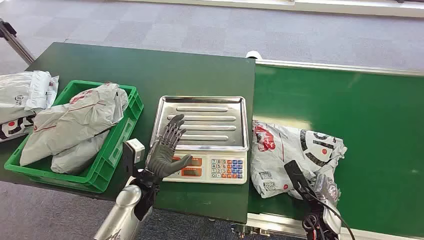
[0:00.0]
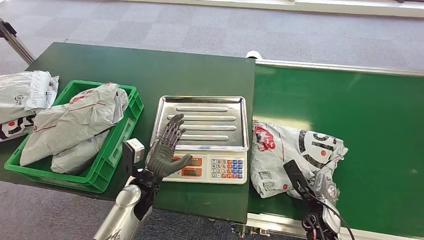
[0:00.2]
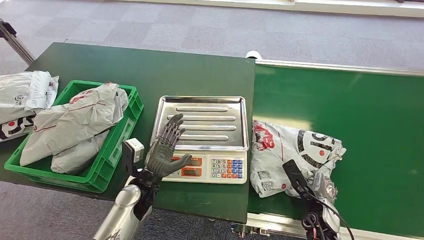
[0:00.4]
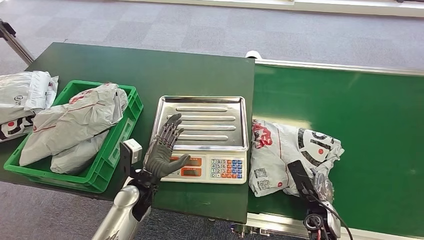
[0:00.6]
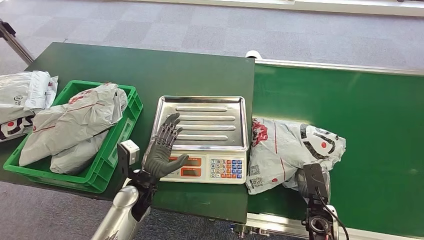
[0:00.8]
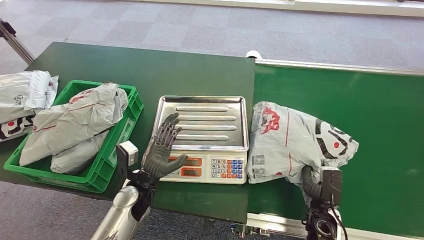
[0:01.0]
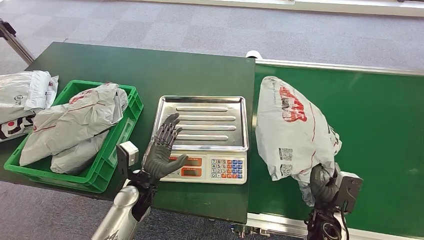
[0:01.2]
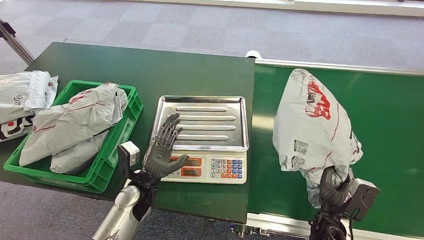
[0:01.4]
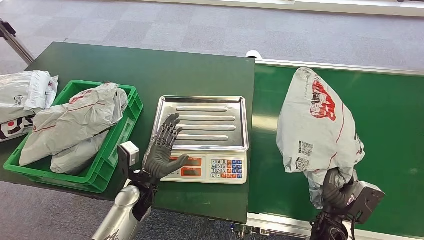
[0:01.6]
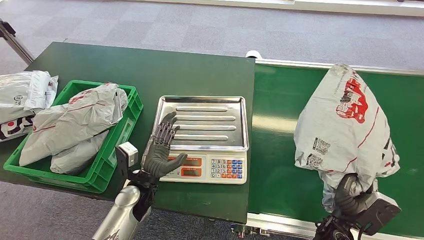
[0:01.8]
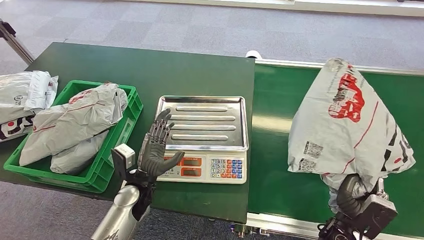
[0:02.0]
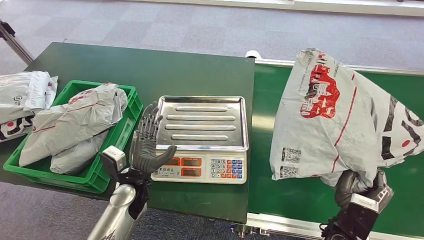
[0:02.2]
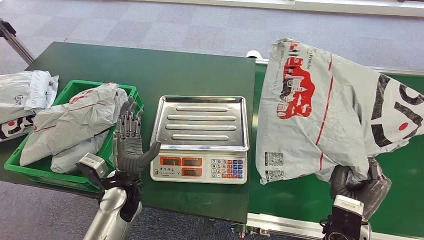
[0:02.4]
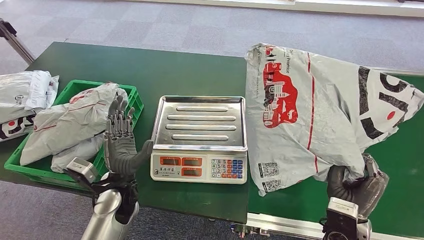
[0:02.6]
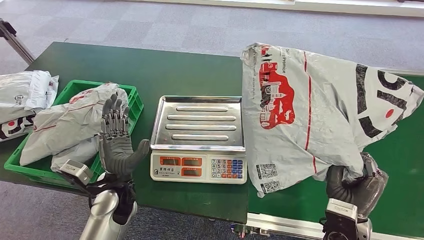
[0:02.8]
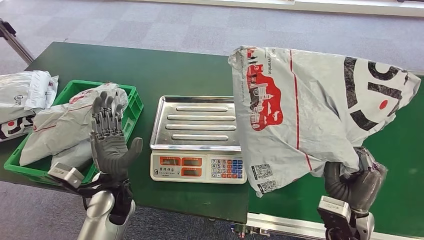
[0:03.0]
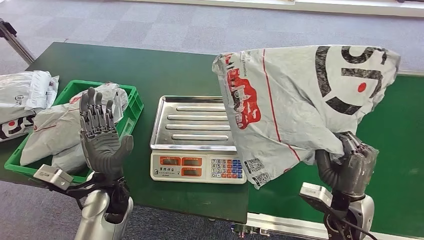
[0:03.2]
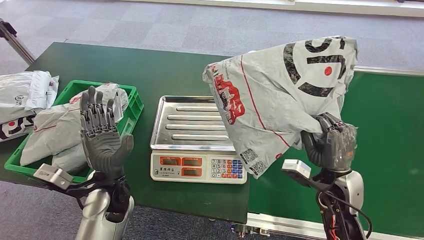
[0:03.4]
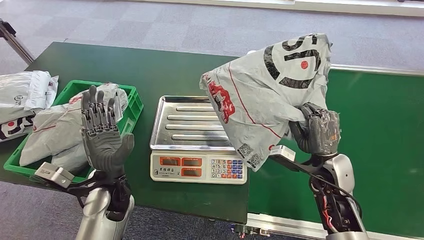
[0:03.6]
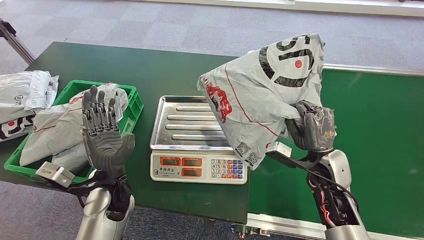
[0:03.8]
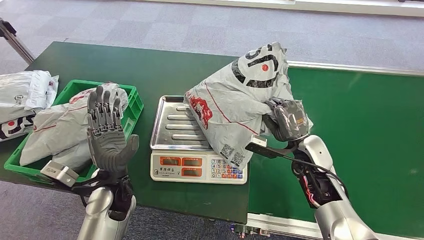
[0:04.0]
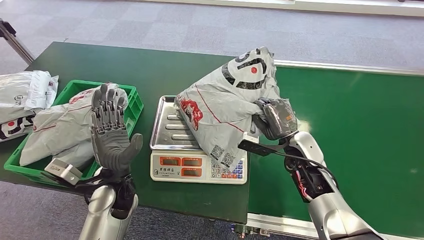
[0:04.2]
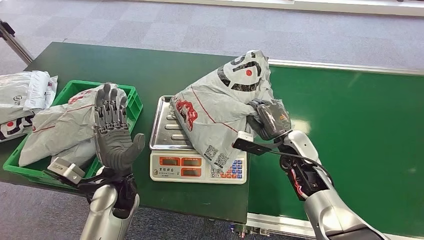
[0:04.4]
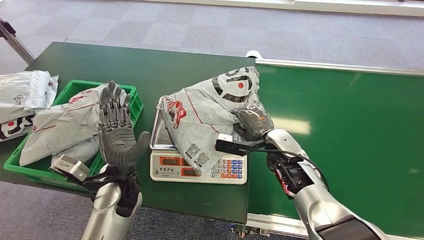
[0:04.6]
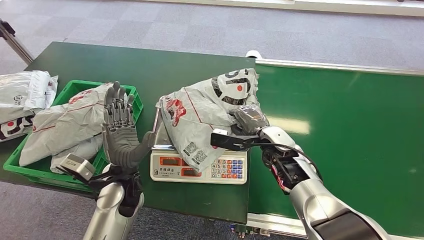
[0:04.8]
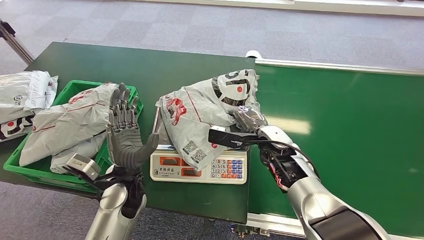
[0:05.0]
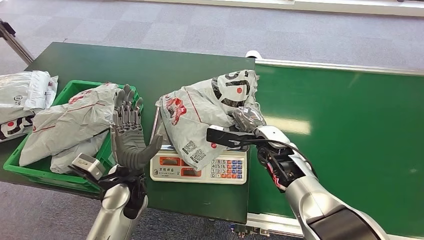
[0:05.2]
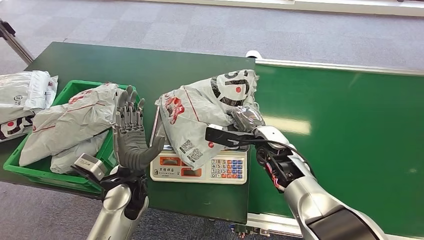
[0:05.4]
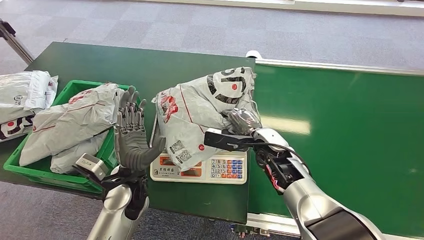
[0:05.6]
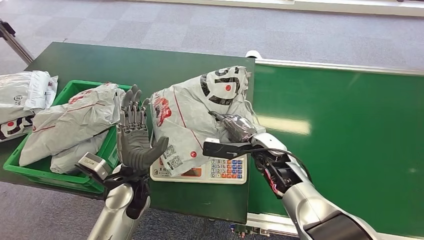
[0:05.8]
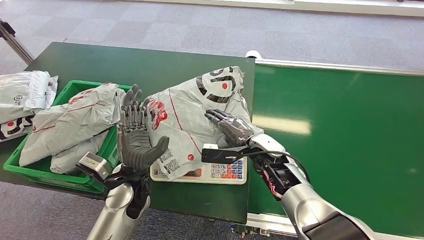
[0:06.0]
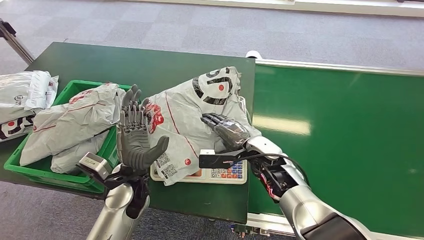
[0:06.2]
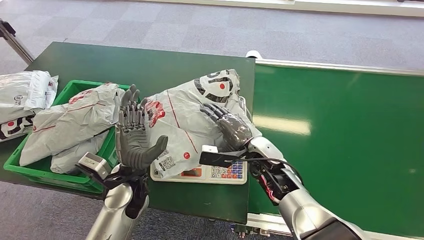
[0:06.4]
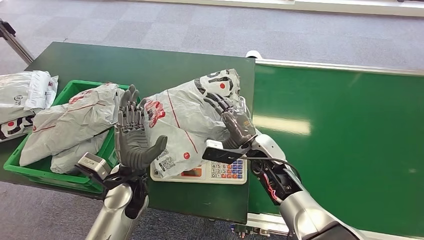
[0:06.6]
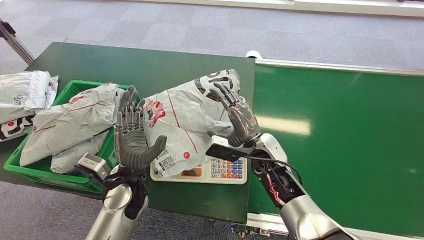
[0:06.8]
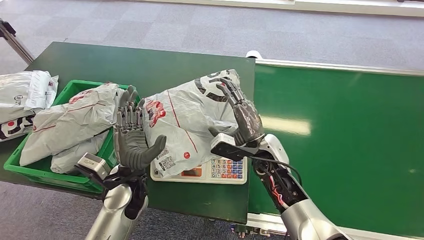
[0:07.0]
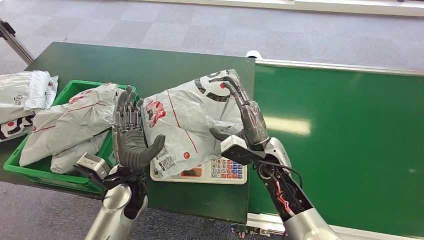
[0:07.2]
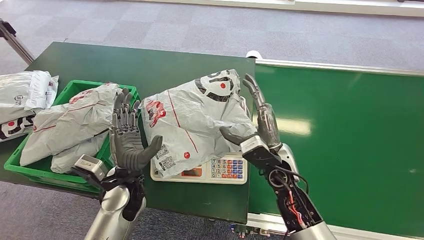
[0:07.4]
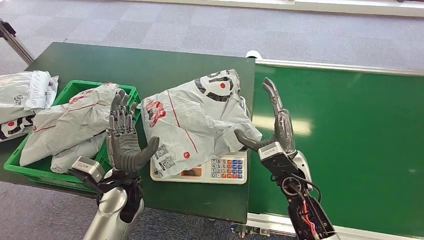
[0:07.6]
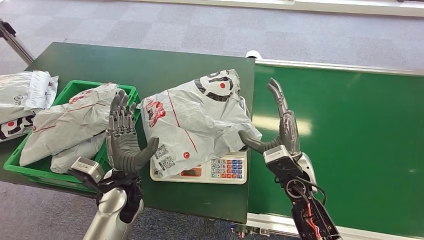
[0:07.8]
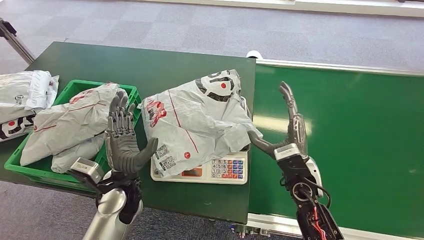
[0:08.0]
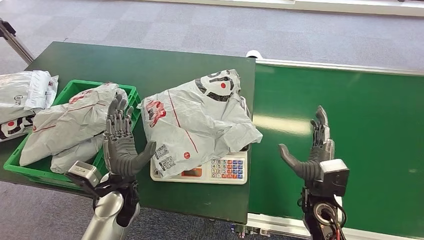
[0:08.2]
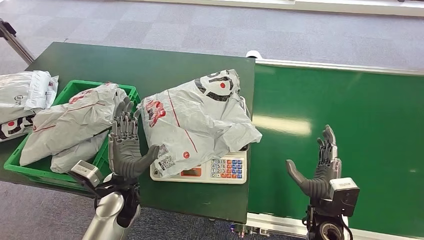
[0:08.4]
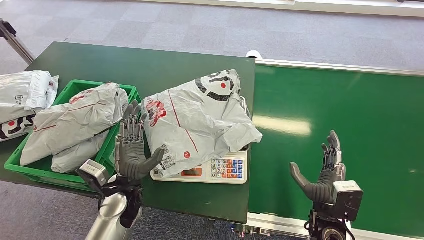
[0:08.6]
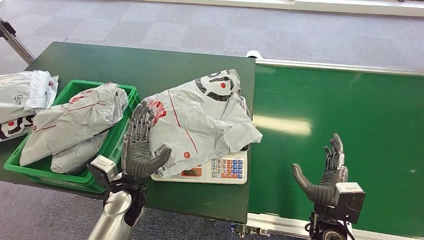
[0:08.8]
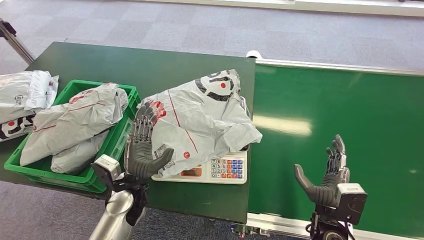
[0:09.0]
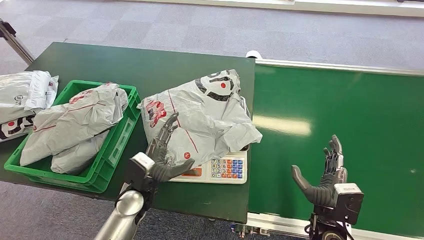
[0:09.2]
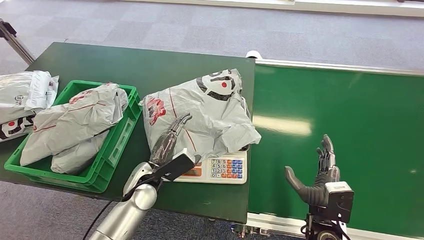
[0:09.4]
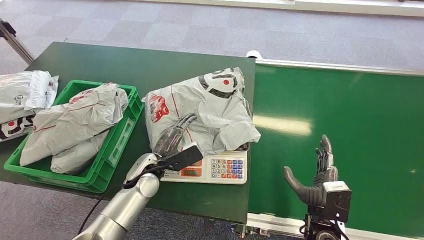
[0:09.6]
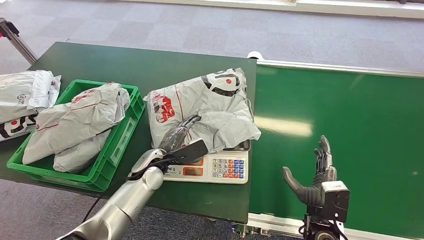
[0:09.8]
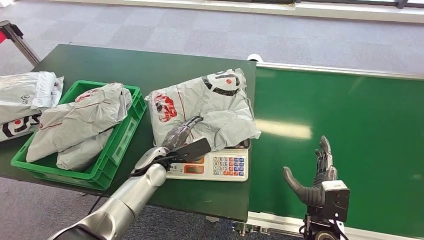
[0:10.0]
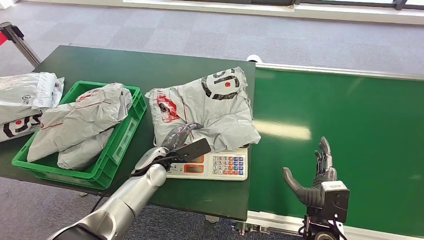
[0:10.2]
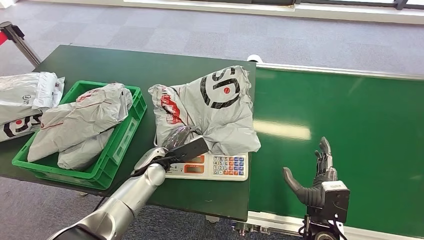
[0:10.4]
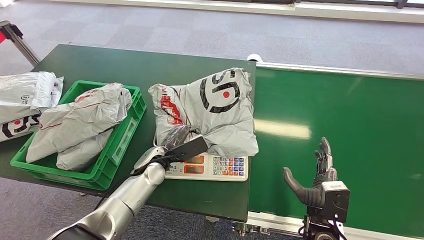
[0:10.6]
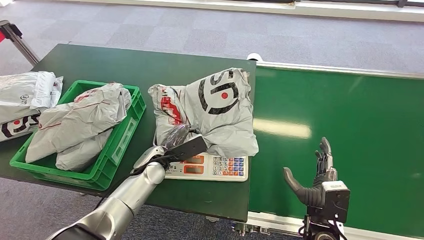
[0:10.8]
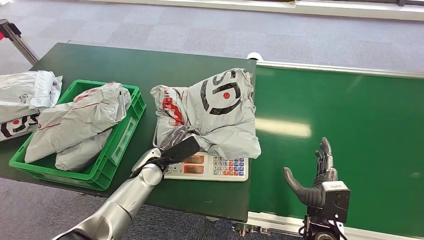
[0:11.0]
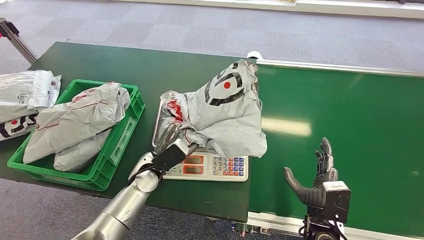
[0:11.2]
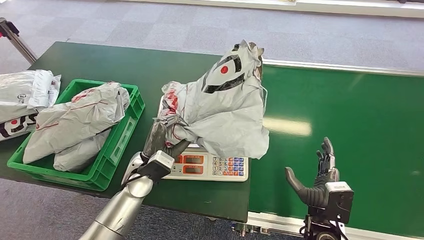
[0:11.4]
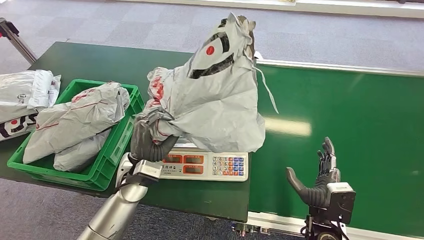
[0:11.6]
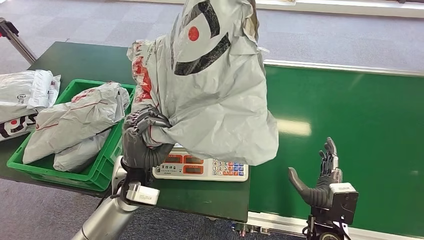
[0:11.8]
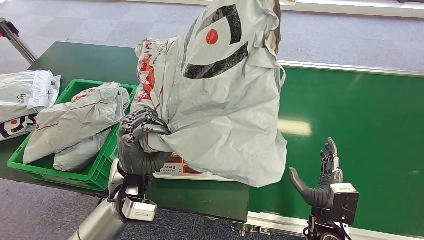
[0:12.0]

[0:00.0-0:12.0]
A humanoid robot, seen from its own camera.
Step, 0:00.0 to 0:01.4: Pick up the package from the conveyor belt.
Step, 0:02.2 to 0:05.0: Place the package onto the inbound machine.
Step, 0:09.8 to 0:11.6: Pick up the package from the inbound machine.
0:06.0 to 0:07.6: The right hand moves backward, roughly 5 cm.
0:07.6 to 0:09.0: The right hand shifts some 15 cm backward, to the right and downward.

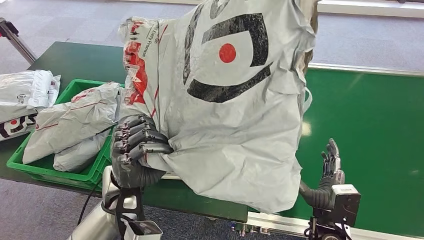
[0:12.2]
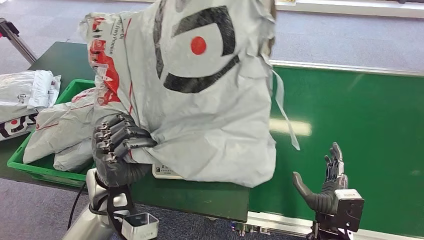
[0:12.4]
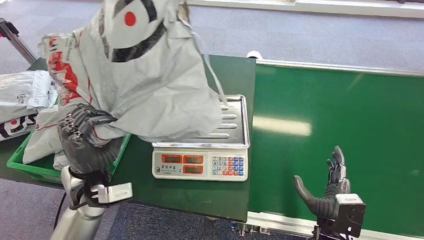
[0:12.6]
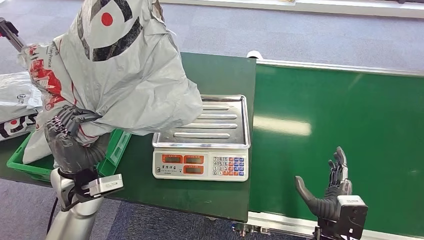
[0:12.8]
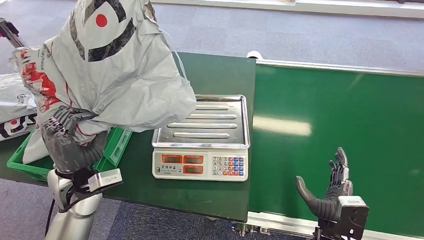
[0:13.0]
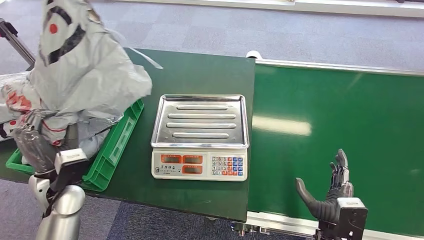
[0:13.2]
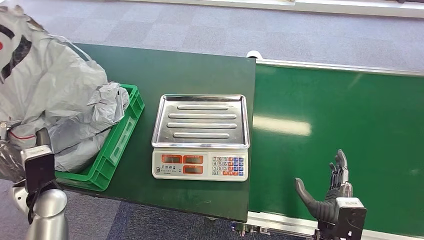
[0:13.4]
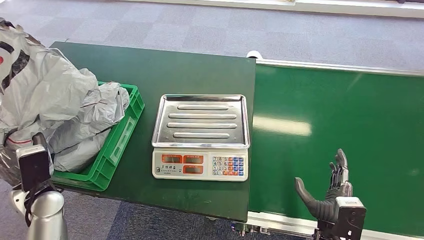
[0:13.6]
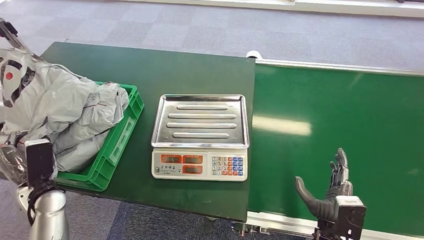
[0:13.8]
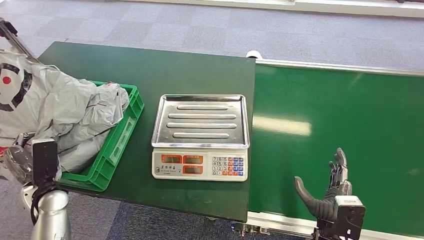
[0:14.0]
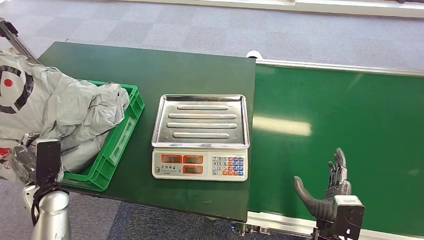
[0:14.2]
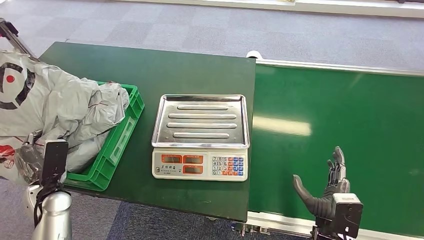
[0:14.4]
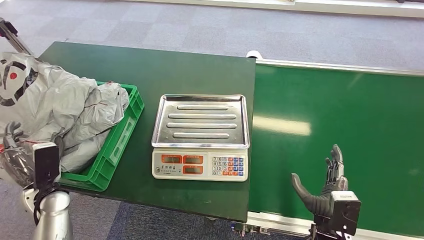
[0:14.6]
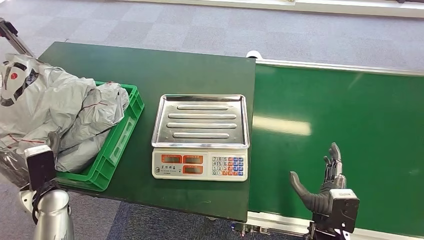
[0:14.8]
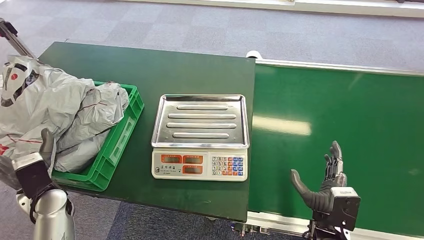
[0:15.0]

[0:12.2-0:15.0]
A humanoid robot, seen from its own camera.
Step, 0:12.8 to 0:15.0: Place the package into the parcel locker.
